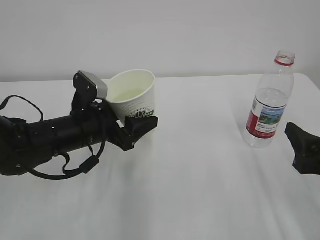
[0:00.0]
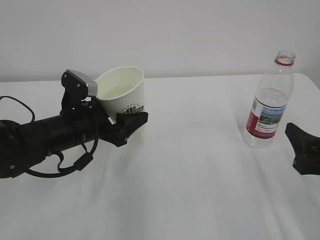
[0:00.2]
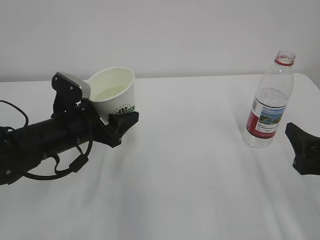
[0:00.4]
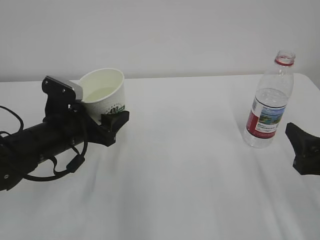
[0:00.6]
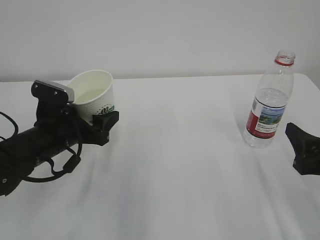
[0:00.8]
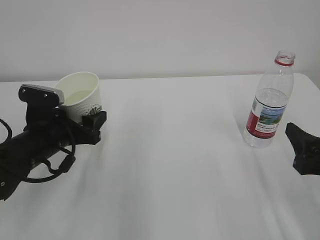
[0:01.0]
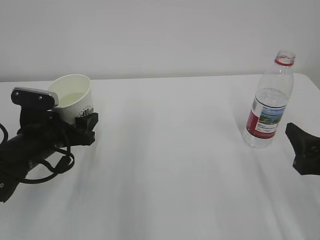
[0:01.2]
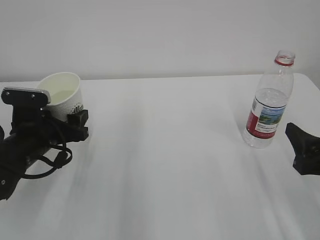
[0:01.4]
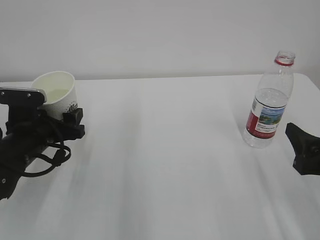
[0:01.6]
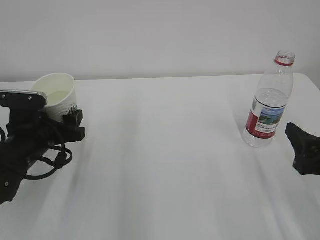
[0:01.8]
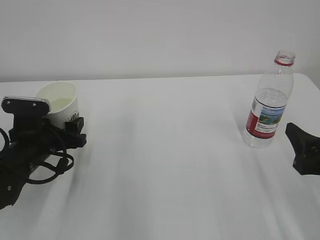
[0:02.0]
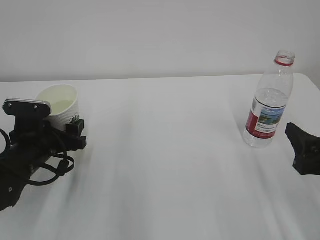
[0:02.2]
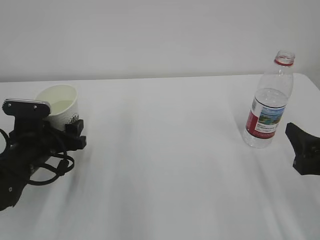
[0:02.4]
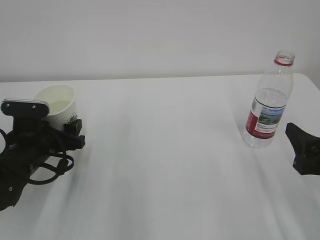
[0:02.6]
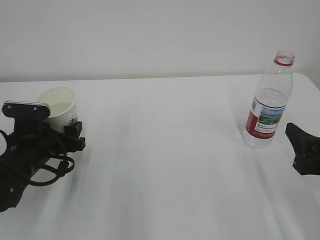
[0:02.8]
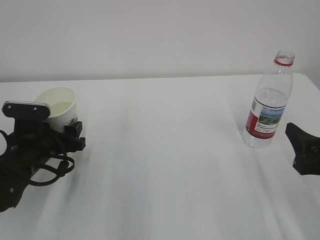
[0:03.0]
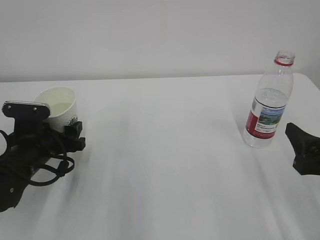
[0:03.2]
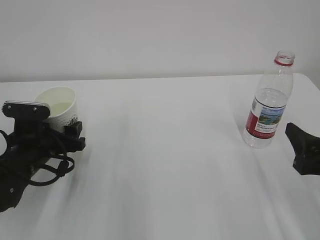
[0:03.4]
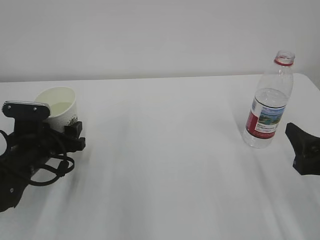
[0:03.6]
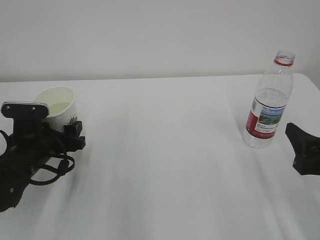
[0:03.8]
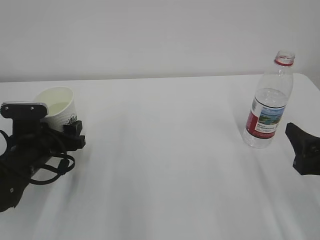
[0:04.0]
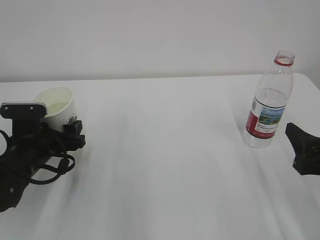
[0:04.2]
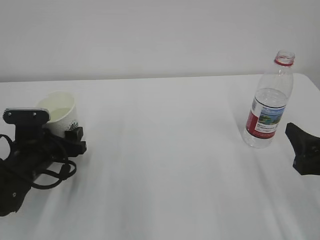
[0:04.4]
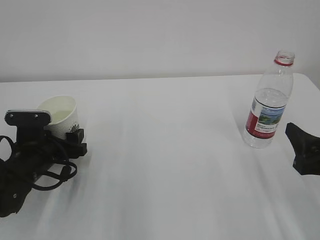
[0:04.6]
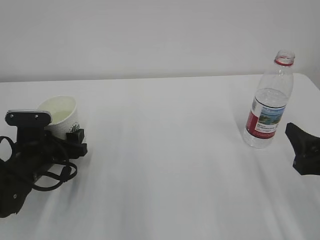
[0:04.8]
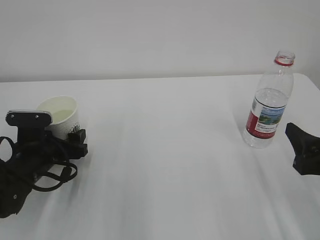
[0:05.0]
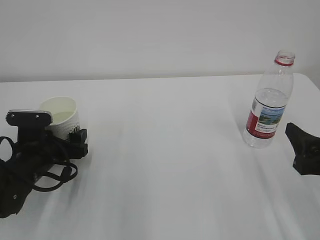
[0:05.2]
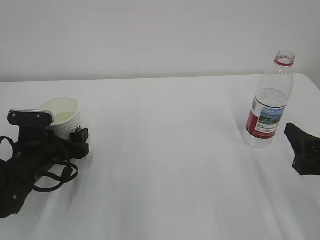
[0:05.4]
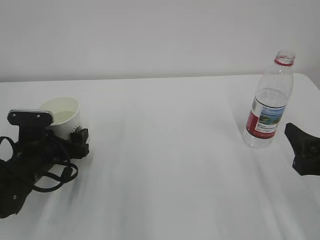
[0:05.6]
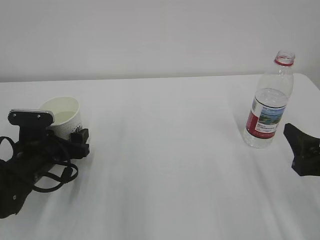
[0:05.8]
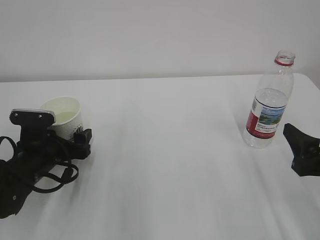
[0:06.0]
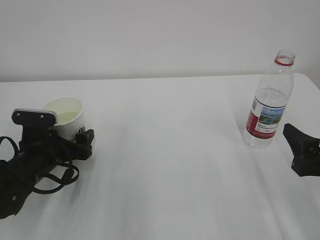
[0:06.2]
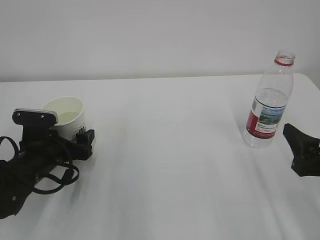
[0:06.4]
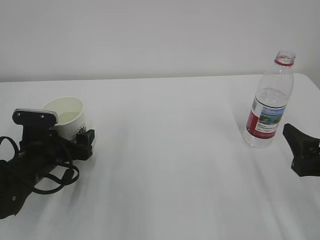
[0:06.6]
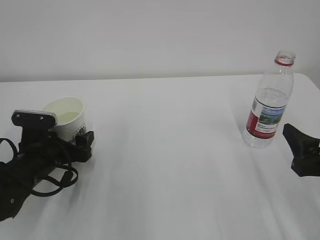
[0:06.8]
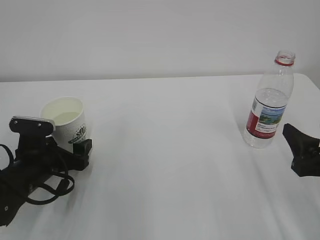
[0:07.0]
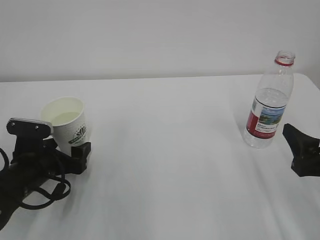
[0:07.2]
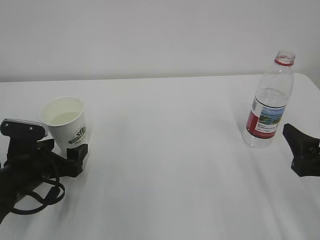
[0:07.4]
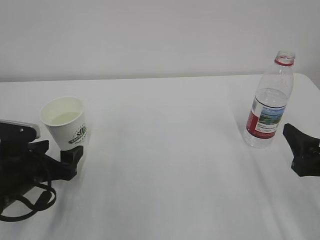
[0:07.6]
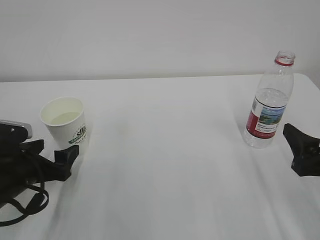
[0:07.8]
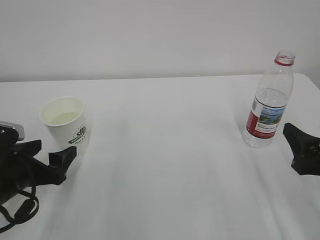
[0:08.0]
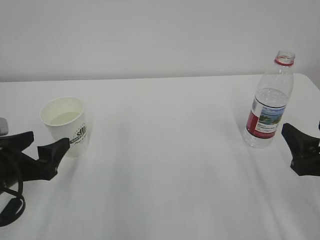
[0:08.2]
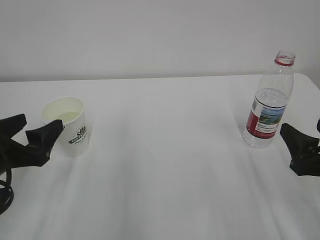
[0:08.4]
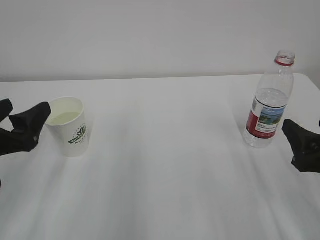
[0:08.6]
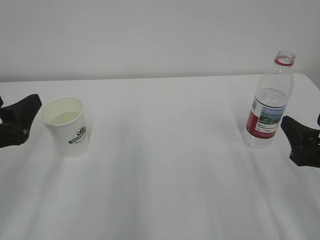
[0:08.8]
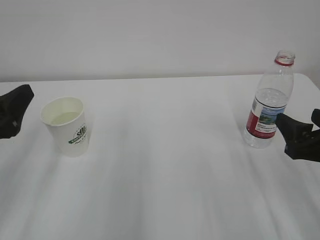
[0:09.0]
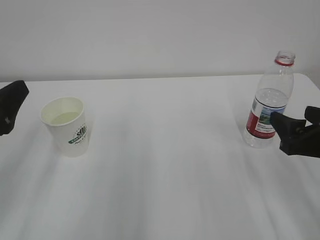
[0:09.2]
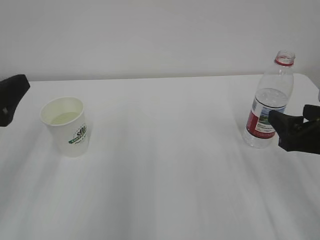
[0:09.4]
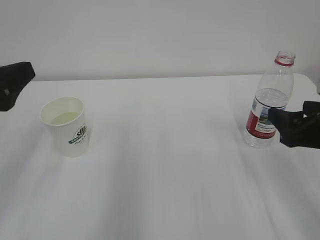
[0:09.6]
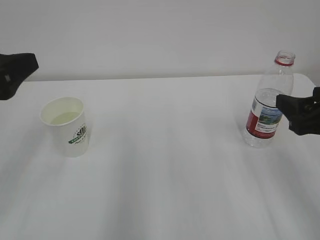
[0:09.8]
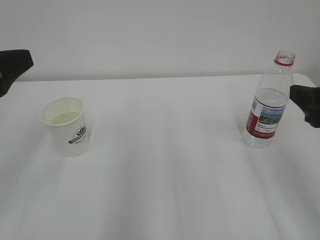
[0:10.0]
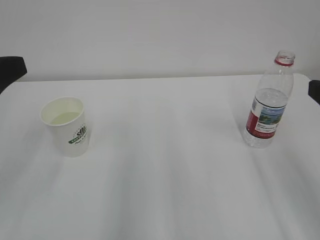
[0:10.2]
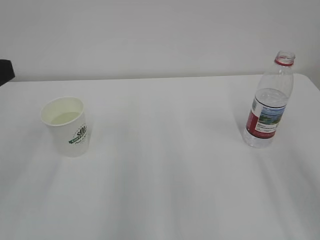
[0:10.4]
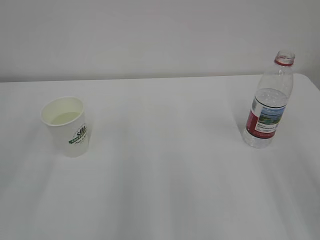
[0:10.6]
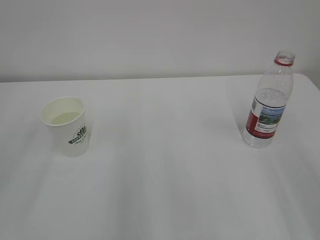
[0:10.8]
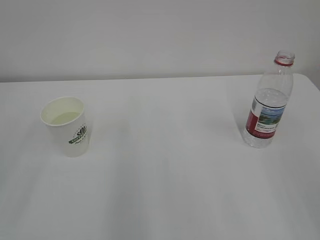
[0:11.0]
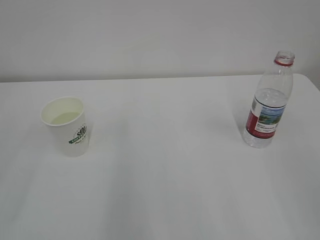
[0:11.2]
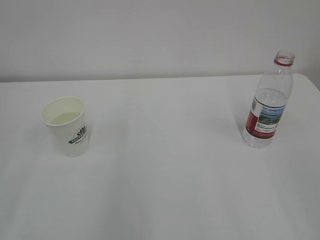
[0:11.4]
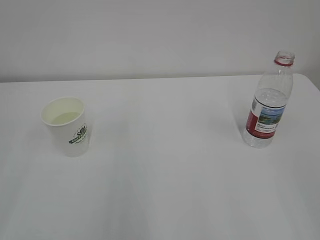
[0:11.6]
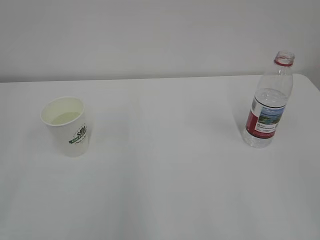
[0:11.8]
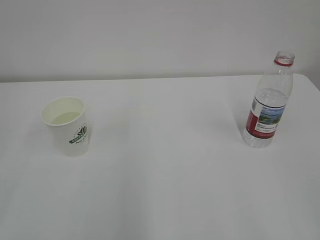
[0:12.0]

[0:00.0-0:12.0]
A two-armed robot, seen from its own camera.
0:00.0 to 0:01.6: The left gripper shifts some 10 cm to the left.
0:01.6 to 0:03.0: The grippers stay close to where they were, moving slightly.
0:03.0 to 0:04.4: Neither gripper changes place.
0:04.4 to 0:06.0: The left gripper opens its fingers.
0:06.0 to 0:07.6: The left gripper changes place by some 5 cm.
0:07.6 to 0:09.0: The left gripper goes roughly 15 cm upward and backward.
0:09.0 to 0:10.4: The right gripper heads upward and backward, covering some 15 cm. The left gripper travels upward by roughly 10 cm.

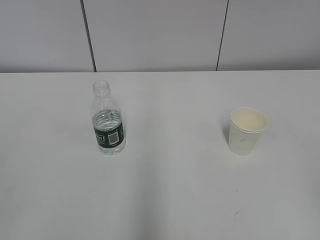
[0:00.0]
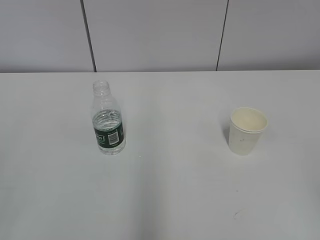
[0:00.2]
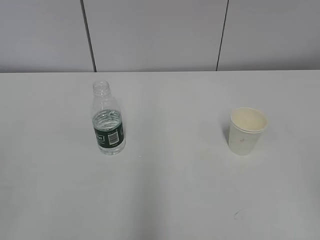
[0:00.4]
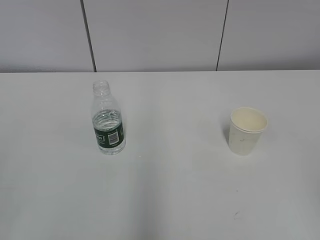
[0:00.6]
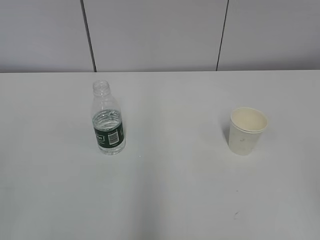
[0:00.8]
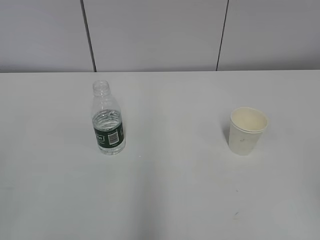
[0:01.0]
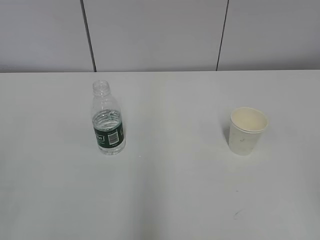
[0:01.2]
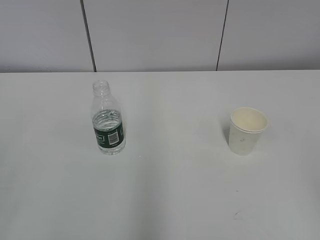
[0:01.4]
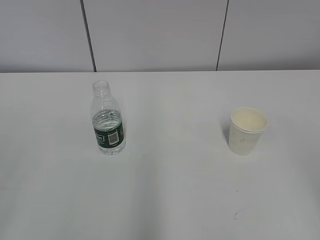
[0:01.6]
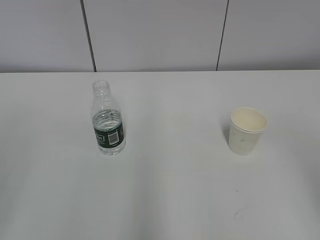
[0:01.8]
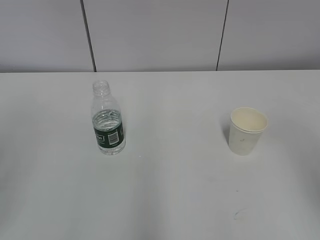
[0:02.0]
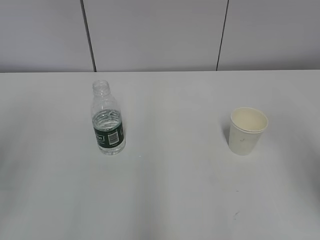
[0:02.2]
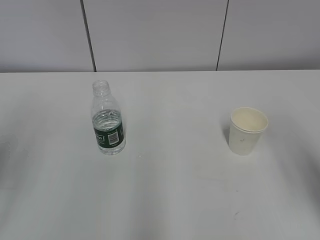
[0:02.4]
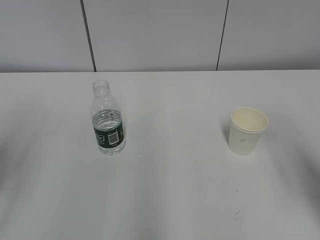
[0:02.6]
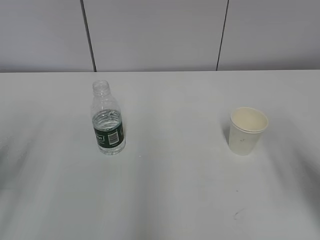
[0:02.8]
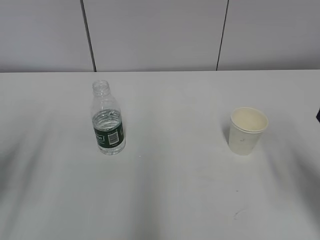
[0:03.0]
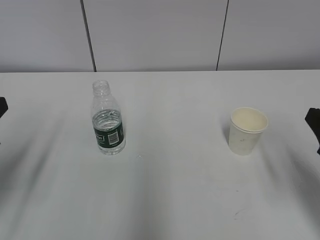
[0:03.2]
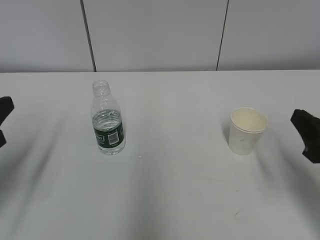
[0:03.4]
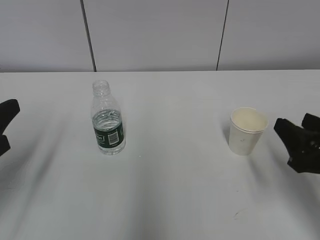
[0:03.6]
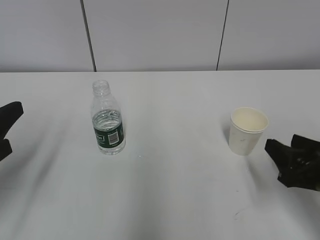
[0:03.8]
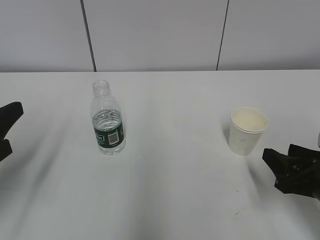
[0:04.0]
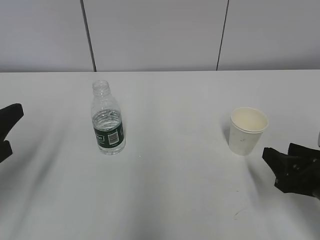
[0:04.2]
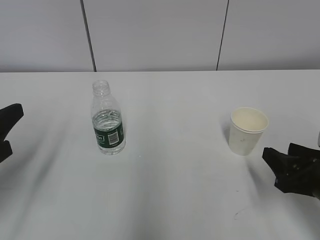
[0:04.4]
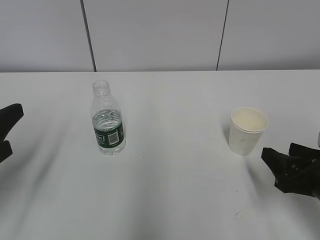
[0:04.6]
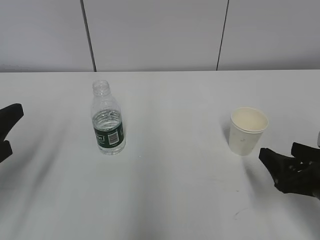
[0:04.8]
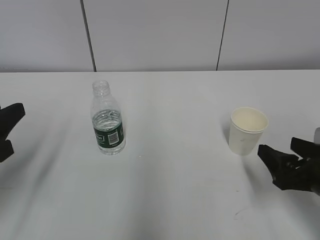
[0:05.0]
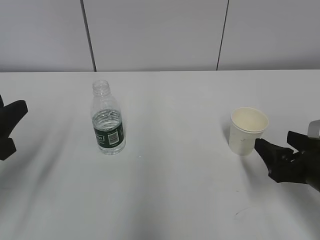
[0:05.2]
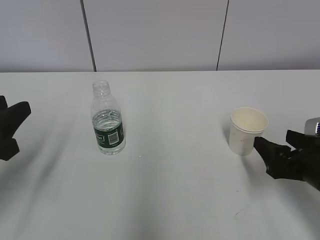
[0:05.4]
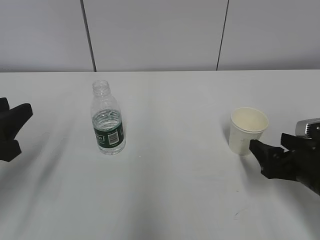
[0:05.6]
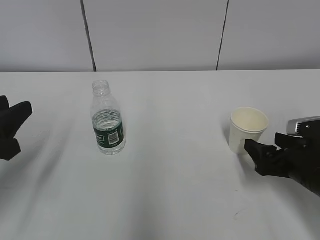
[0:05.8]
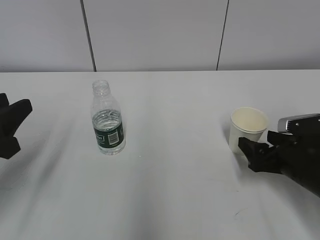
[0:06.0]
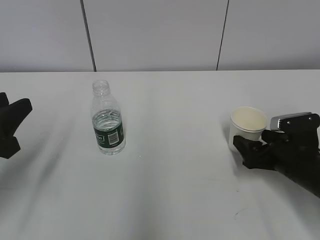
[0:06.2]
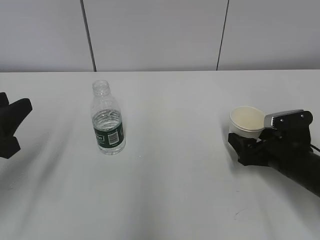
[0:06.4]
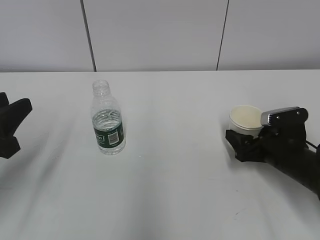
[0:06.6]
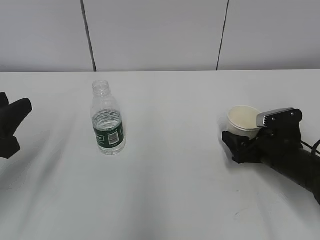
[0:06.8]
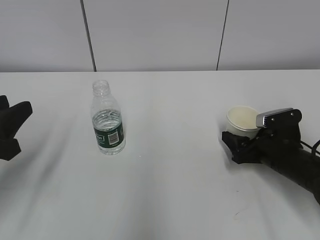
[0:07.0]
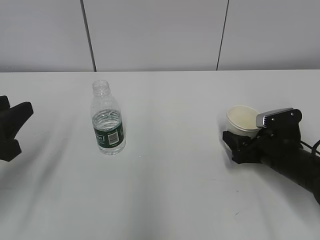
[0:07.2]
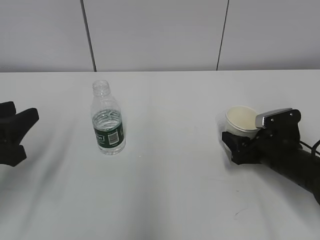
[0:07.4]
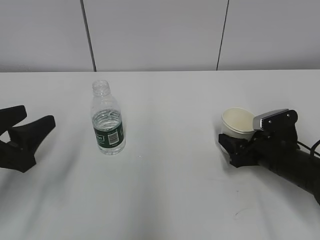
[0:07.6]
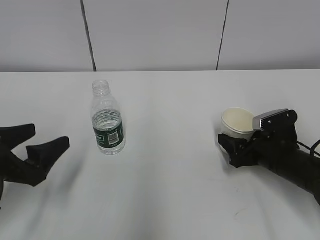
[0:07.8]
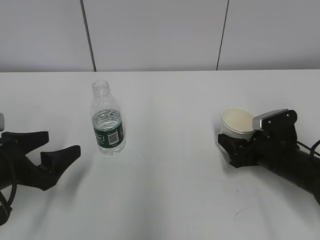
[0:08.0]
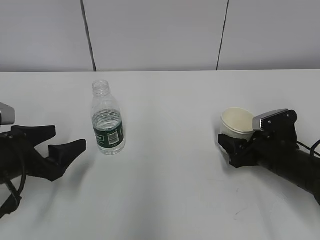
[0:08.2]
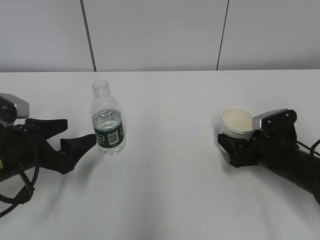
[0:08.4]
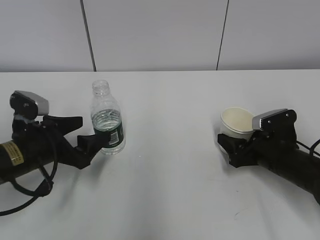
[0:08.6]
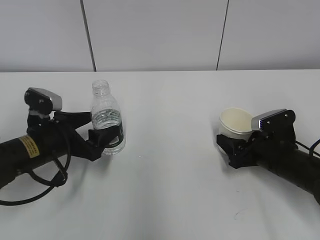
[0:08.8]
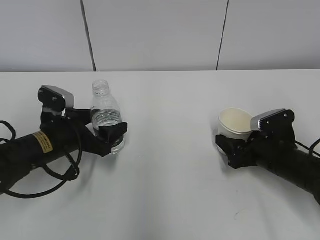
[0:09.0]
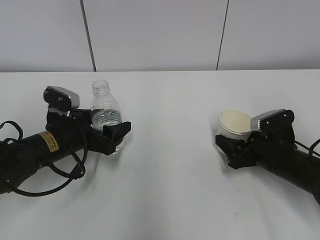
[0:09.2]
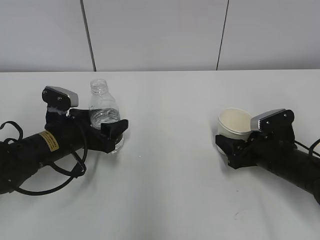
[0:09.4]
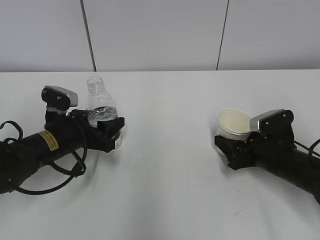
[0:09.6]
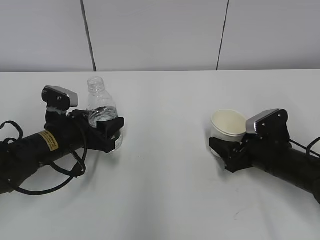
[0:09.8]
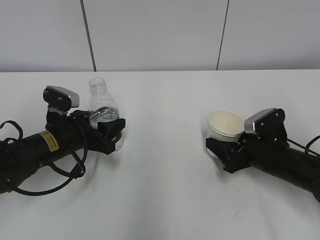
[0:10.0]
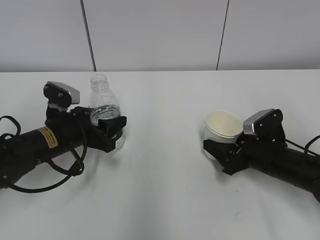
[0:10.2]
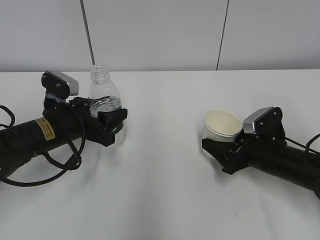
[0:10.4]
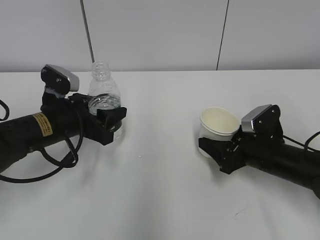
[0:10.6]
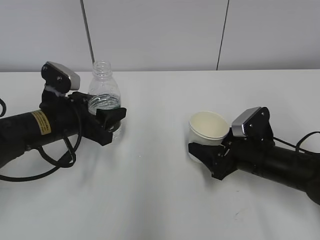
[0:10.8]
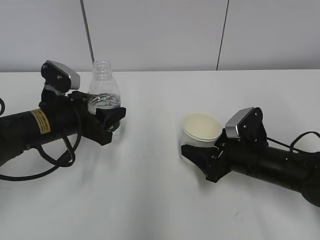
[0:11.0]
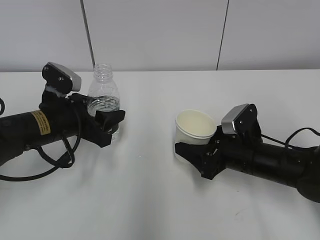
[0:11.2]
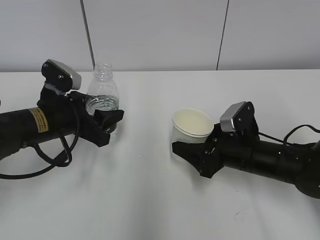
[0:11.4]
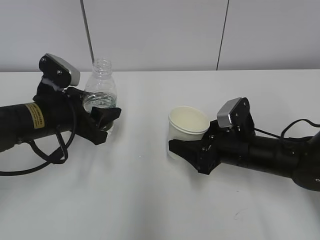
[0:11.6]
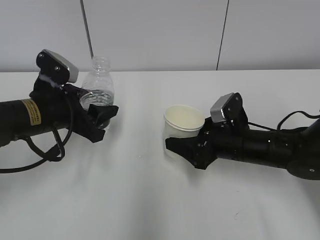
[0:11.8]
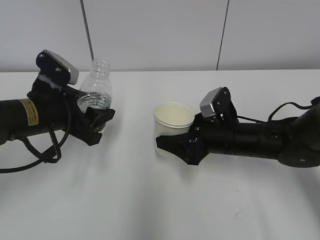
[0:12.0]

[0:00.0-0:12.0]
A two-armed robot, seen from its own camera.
Step, 0:00.0 to 0:07.8: Grab the paper cup with the right hand.
Step, 0:08.0 to 0:08.4: Grab the water bottle with the left hand.
0:01.6 to 0:03.0: The grippers both shift forward and downward by approximately 15 cm.
0:03.0 to 0:04.4: The right gripper is displaced downward by some 10 cm.
0:04.4 to 0:06.0: The right gripper shifts about 5 cm forward, and opens up.
0:06.0 to 0:07.6: The right gripper closes. Meanwhile the left gripper opens up.
0:07.6 to 0:09.0: The left gripper goes roughly 15 cm forward, downward and to the right, and opens.
0:09.0 to 0:10.4: The left gripper closes.
0:10.4 to 0:12.0: The right gripper is displaced to the left by roughly 5 cm.
